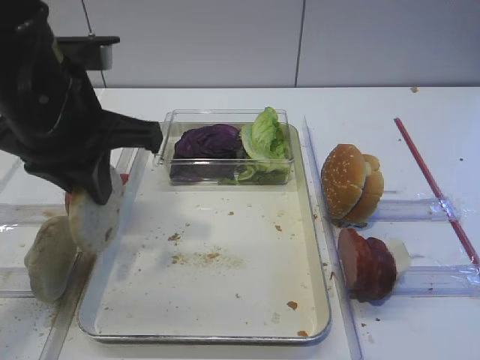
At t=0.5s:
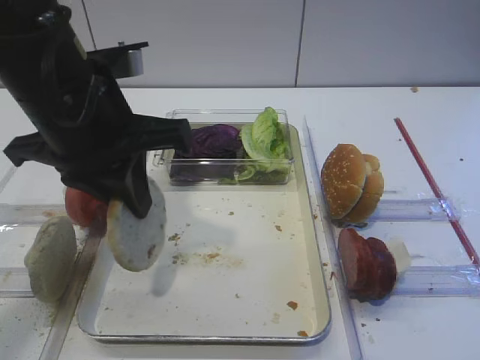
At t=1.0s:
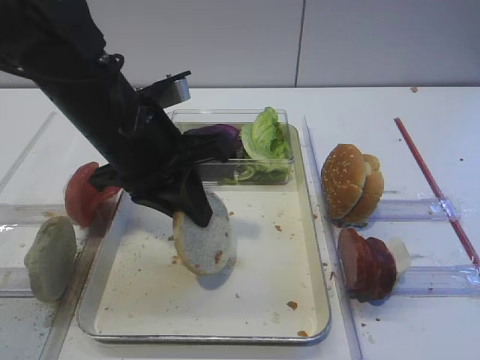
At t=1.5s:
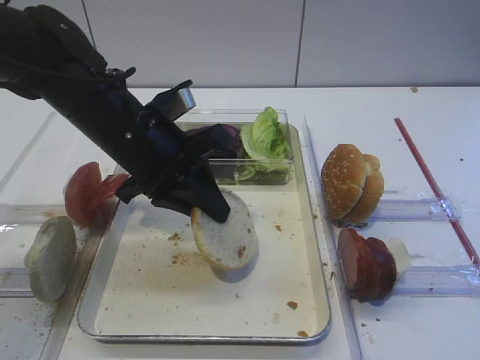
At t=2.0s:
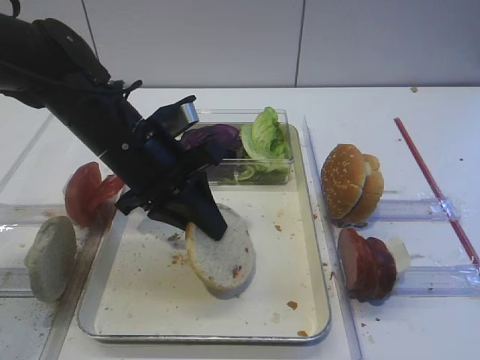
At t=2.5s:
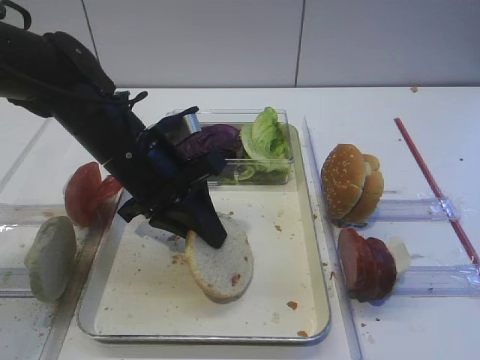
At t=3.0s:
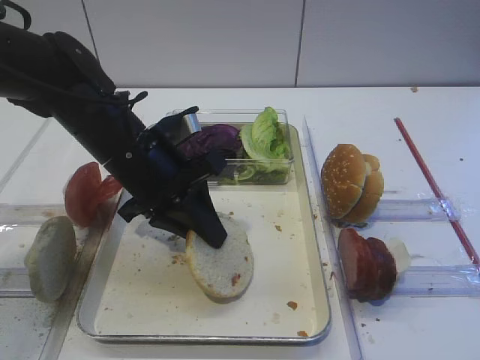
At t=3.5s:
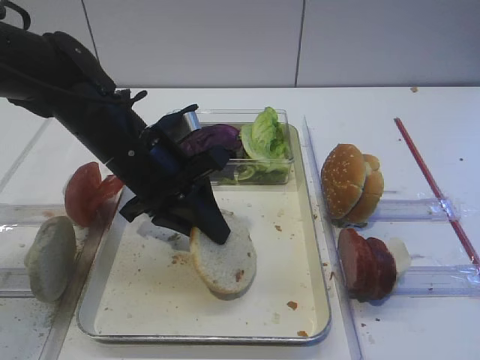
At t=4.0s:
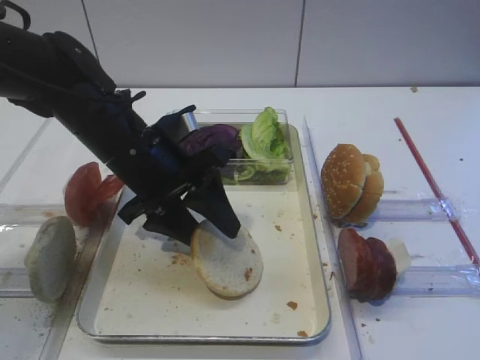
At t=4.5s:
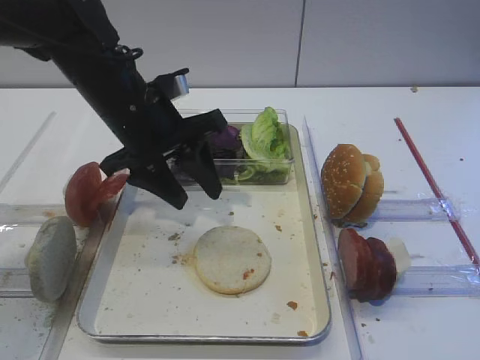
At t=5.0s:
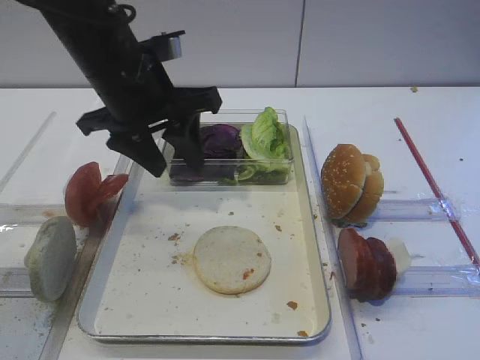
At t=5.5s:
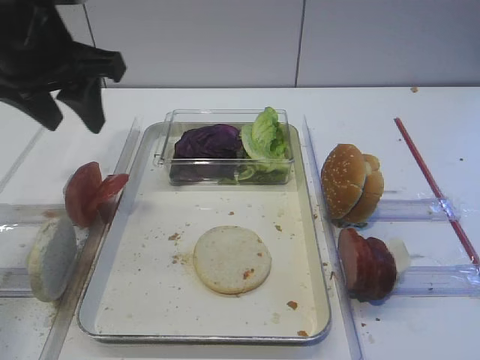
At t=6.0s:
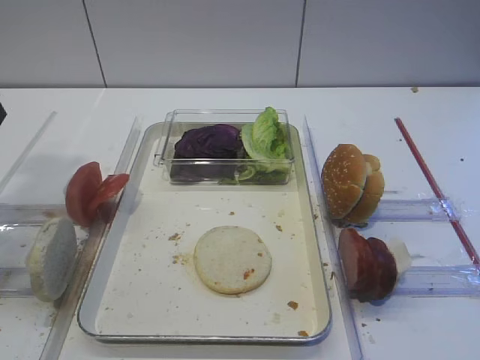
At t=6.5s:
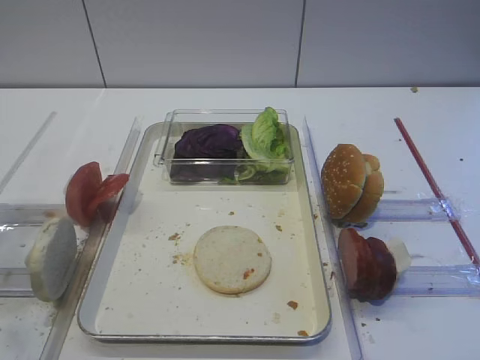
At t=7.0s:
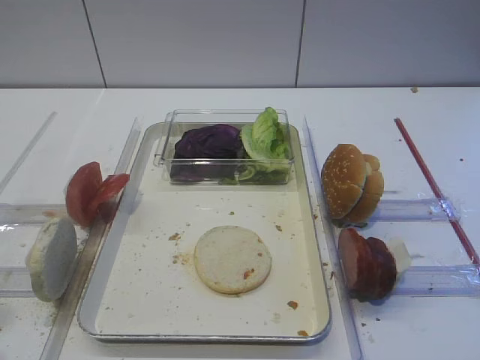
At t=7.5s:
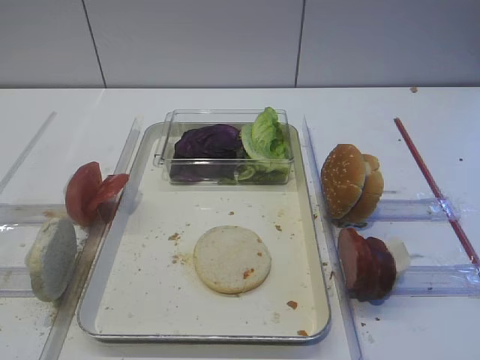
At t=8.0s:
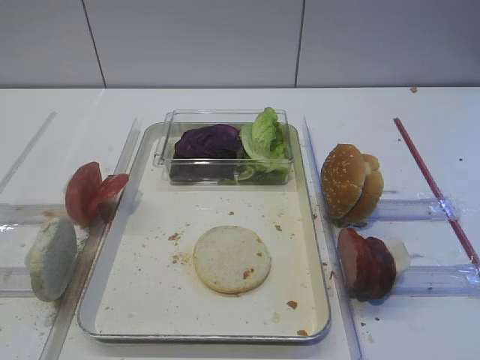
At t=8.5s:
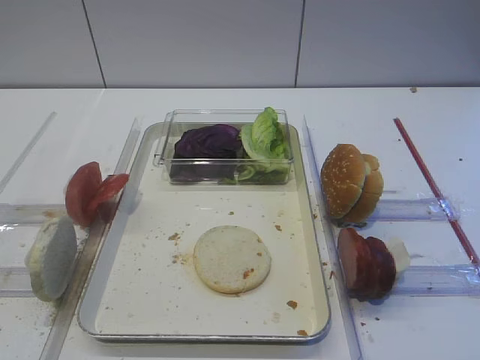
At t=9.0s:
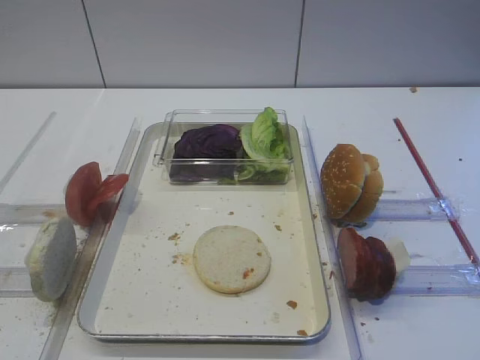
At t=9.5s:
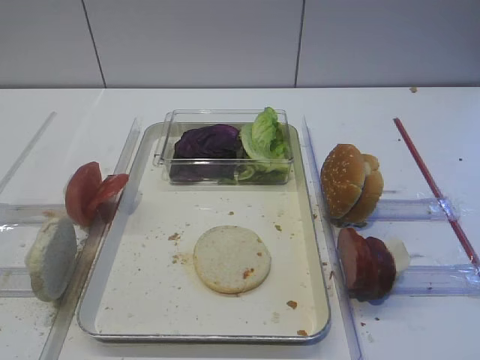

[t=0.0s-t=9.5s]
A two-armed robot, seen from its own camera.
Step, t=0.5s to t=4.5s: Place the bread slice on the tray with the left gripper.
t=0.0s to t=2.0s: The left gripper shifts approximately 10 cm downward.
t=2.0s to t=4.0s: The left gripper opens.
t=4.0s to t=5.5s: The left gripper moves upward and to the left, some 15 cm.
t=5.5s to t=7.5s: The left gripper travels backward by approximately 30 cm.

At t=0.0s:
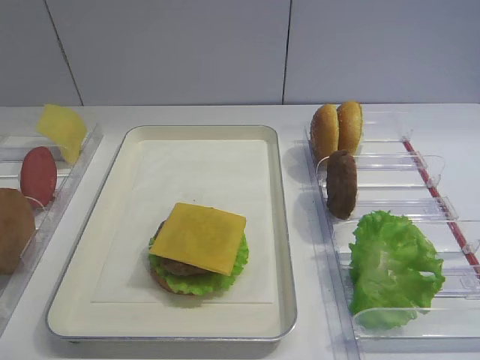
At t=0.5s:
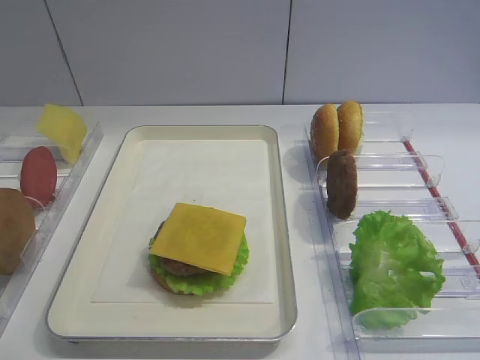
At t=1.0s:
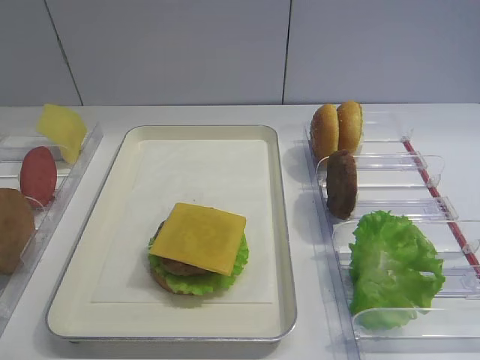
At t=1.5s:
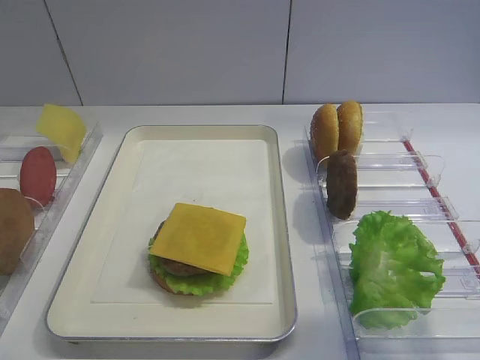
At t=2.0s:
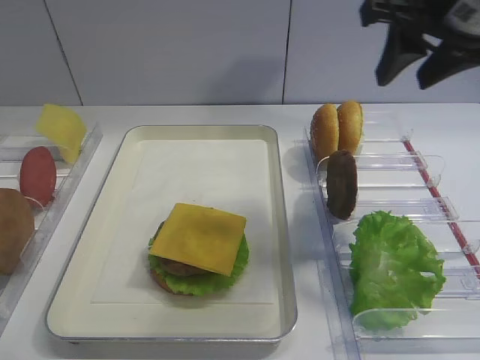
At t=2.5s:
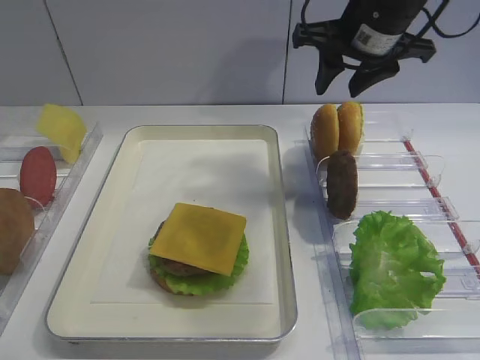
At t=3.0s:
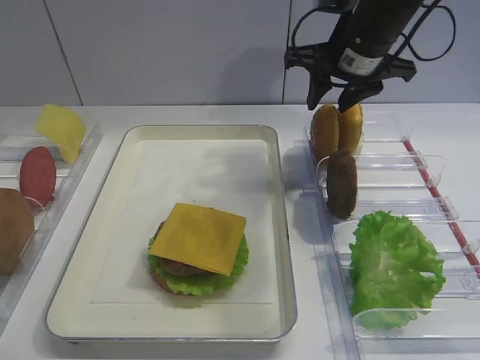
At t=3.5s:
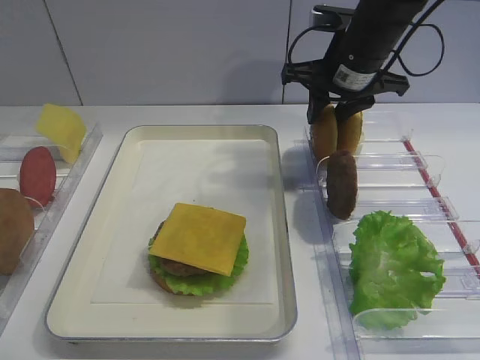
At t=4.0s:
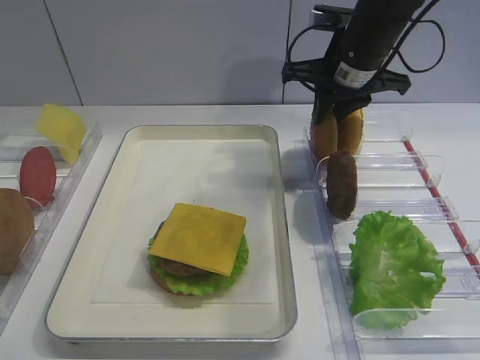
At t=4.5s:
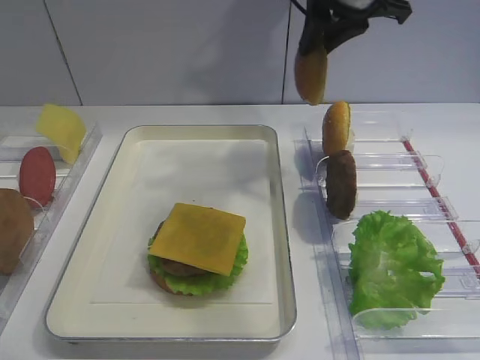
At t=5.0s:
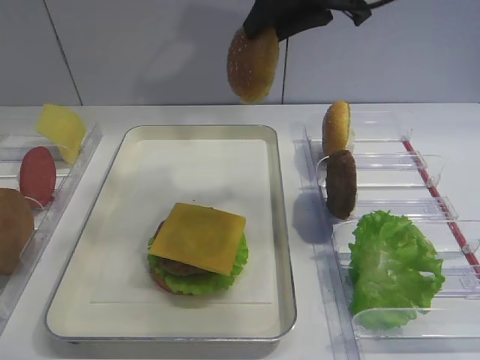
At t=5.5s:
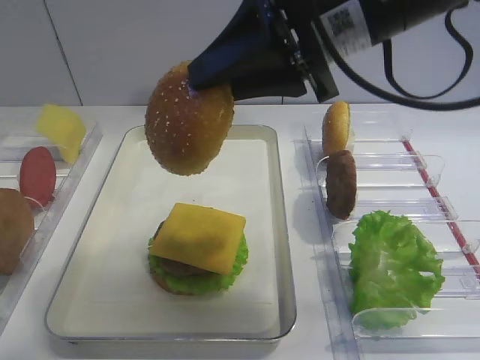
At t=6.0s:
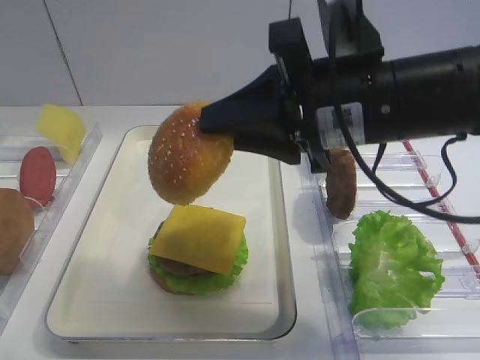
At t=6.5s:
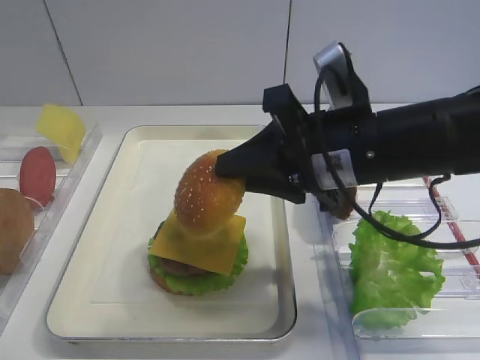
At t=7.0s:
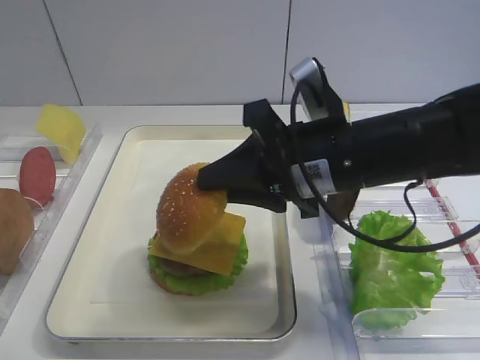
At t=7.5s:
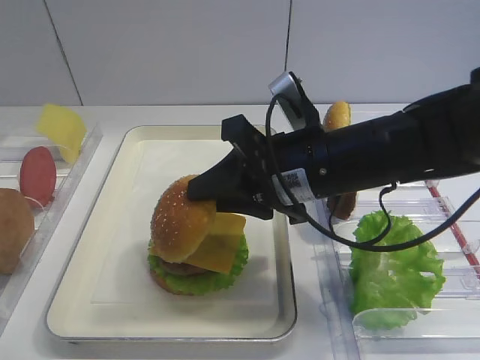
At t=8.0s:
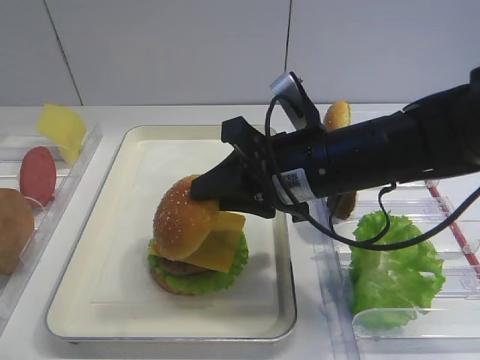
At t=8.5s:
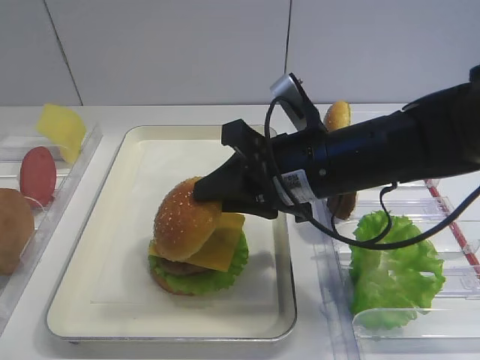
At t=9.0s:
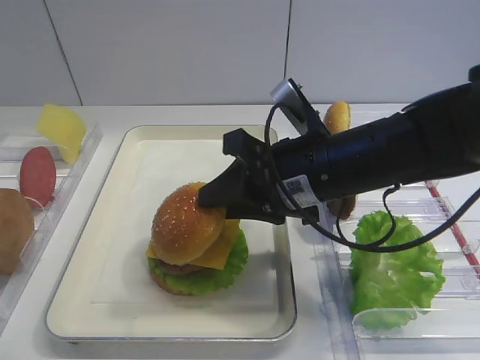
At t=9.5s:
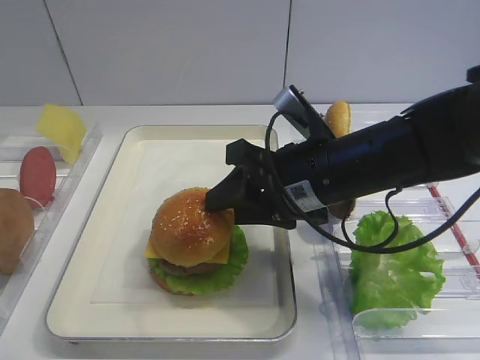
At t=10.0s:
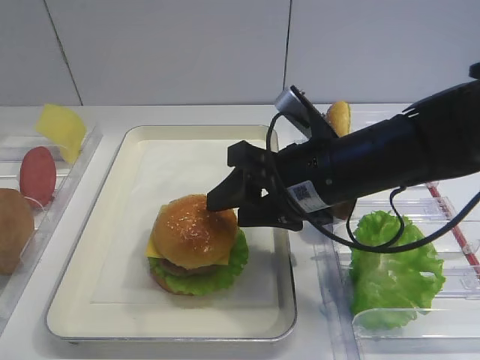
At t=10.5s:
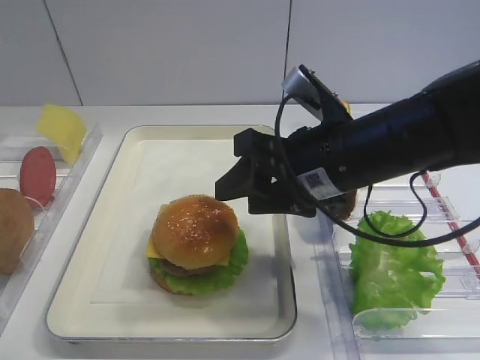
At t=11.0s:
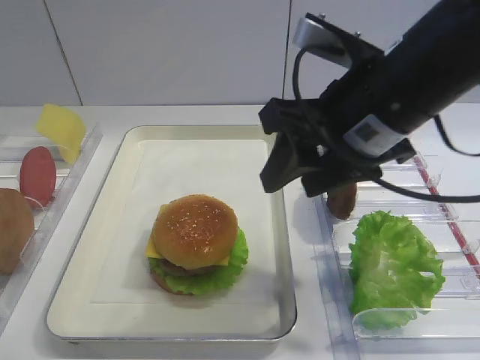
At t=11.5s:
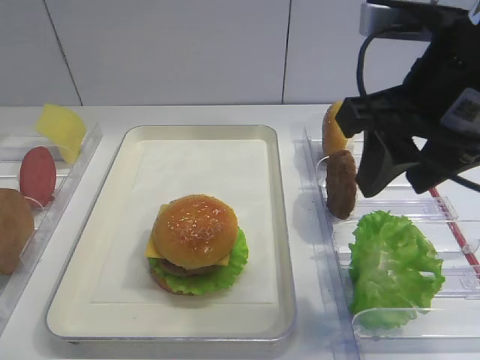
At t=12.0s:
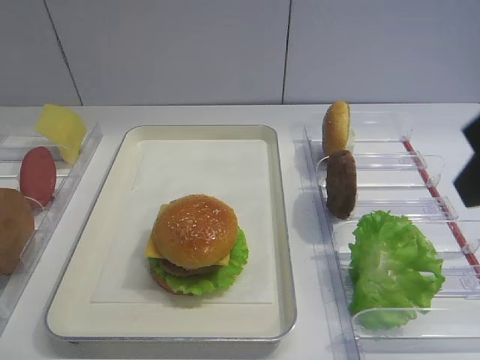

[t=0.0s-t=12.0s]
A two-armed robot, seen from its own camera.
Step, t=0.0s to t=4.0s: Pick up the hamburger lid with the right gripper.
Step, t=4.5s to t=10.0s: Place the hamburger lid on the cheese slice with the right gripper.
t=2.0s to t=4.0s: The right gripper heads forward, downward and to the left, covering approximately 15 cm, and closes up.
t=4.0s to t=6.0s: The right gripper shifts about 20 cm backward.
t=6.0s to t=8.0s: The right gripper is displaced downward by approximately 5 cm.
t=8.0s to t=10.0s: The right gripper opens its fingers.
t=10.0s to t=12.0s: The right gripper shifts some 20 cm upward, backward and to the right.

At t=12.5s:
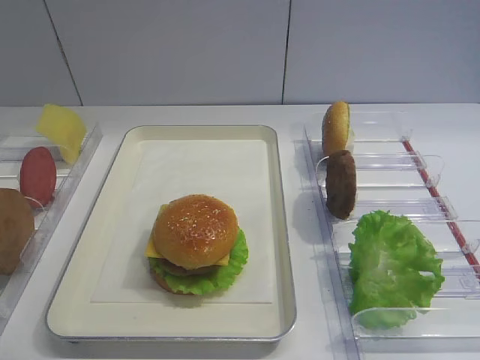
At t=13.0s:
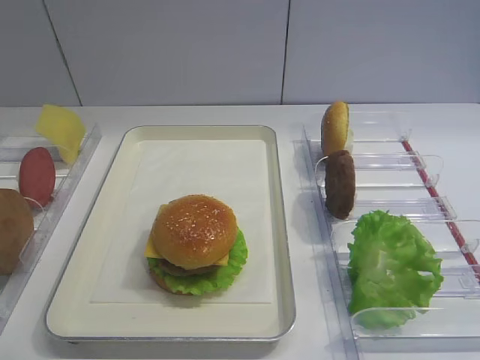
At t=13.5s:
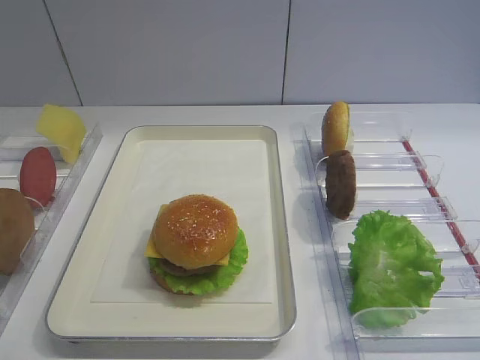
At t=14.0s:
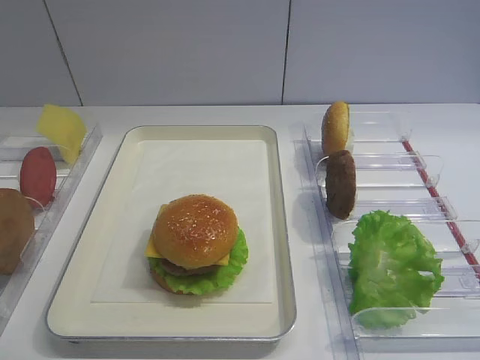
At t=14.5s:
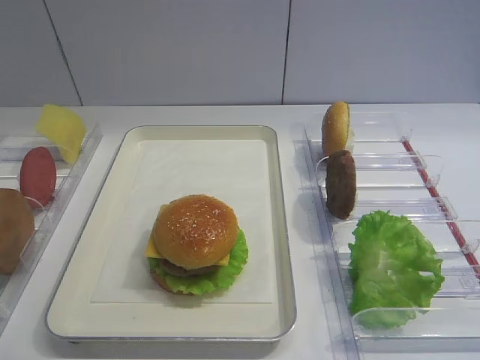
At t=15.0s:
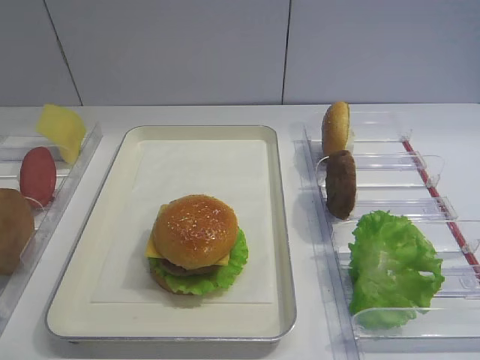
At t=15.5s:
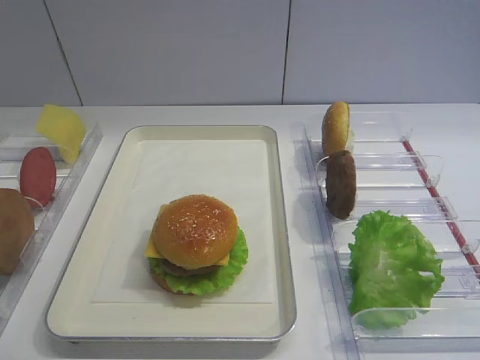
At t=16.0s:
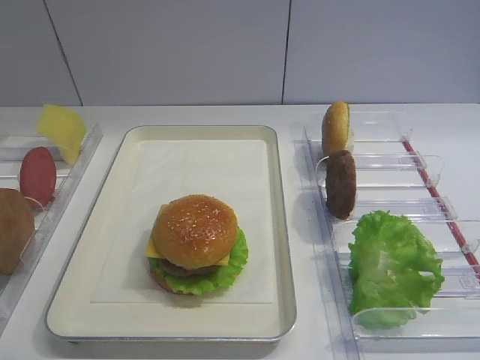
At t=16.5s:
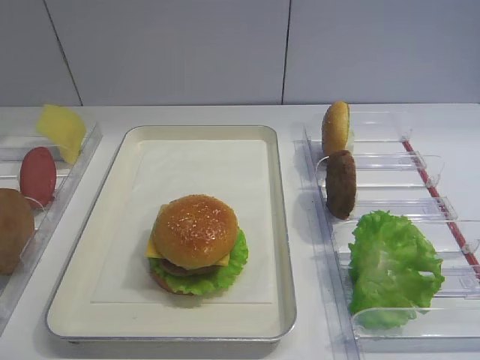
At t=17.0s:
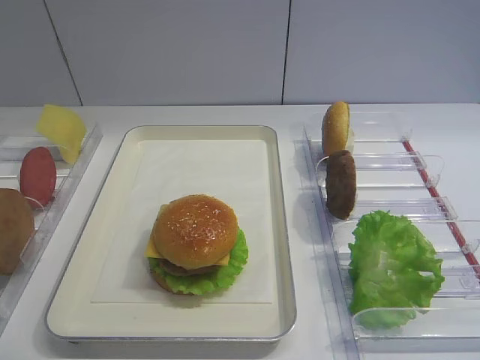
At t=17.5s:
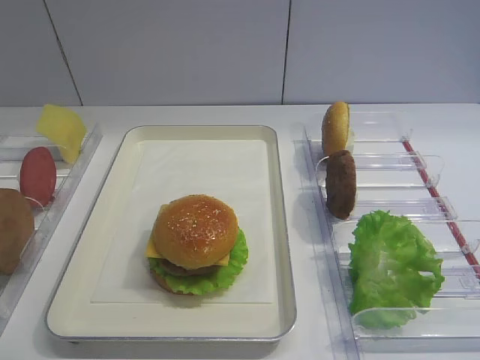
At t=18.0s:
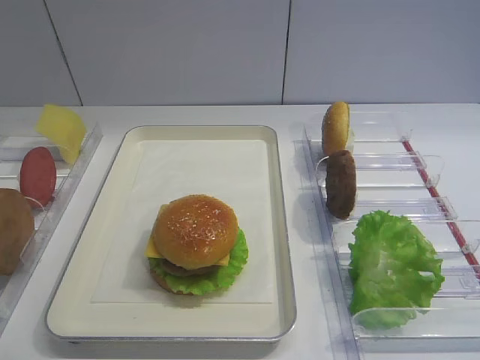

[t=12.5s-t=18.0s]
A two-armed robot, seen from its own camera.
t=14.5s to t=16.0s: Both grippers stay about where they are.
